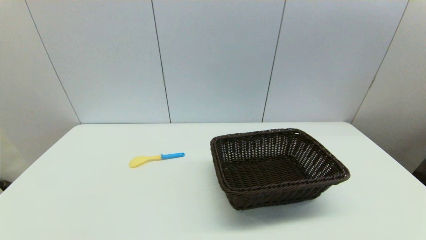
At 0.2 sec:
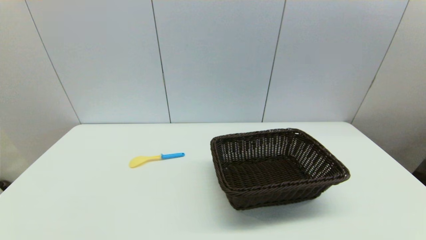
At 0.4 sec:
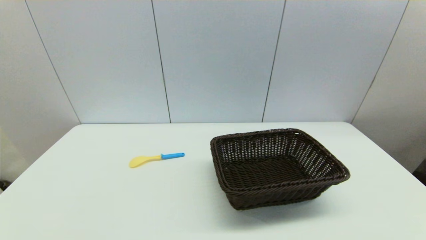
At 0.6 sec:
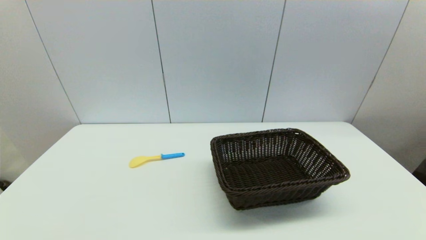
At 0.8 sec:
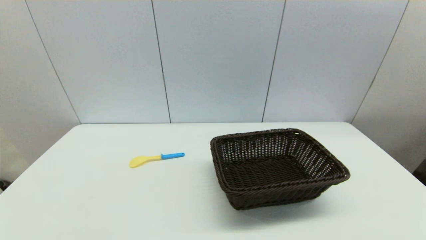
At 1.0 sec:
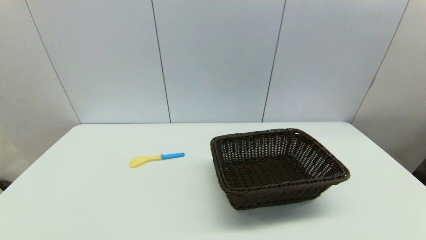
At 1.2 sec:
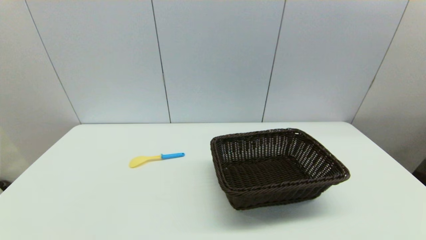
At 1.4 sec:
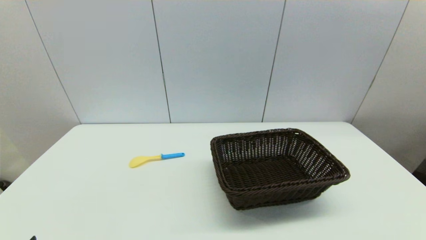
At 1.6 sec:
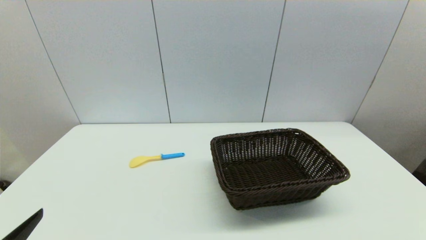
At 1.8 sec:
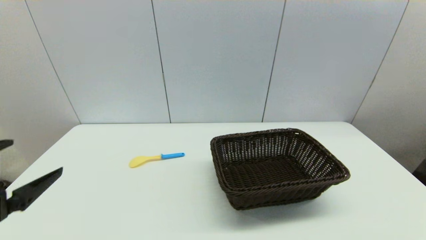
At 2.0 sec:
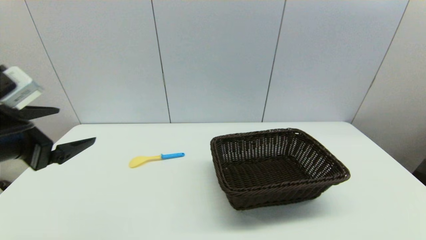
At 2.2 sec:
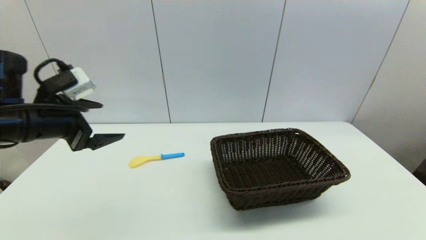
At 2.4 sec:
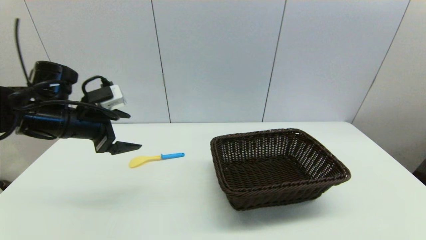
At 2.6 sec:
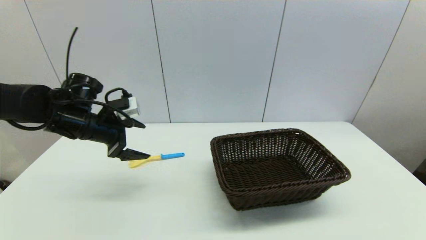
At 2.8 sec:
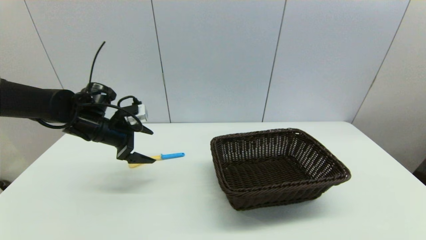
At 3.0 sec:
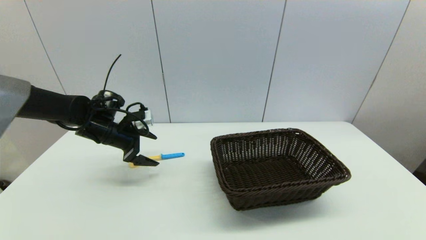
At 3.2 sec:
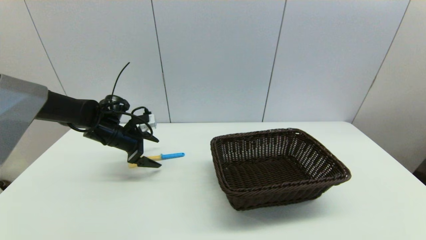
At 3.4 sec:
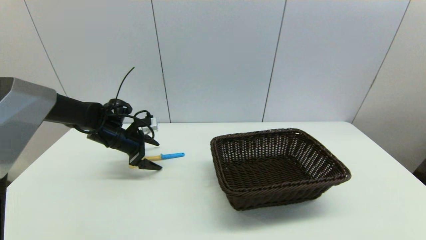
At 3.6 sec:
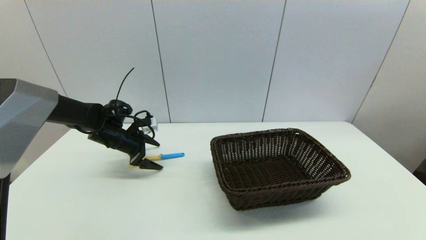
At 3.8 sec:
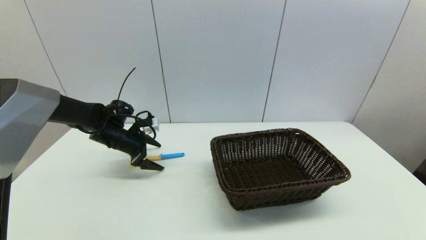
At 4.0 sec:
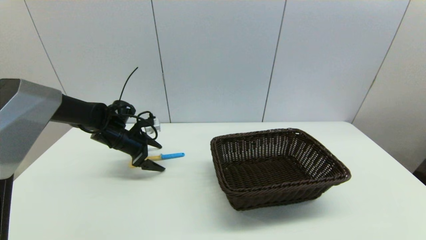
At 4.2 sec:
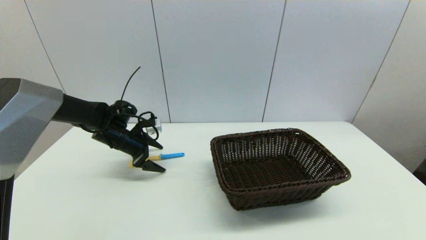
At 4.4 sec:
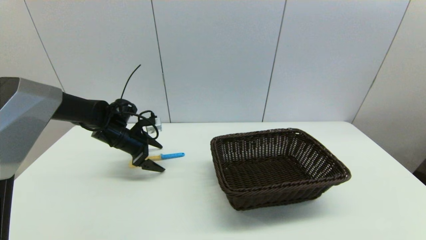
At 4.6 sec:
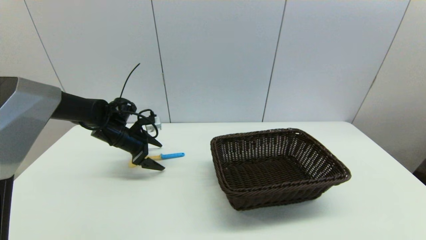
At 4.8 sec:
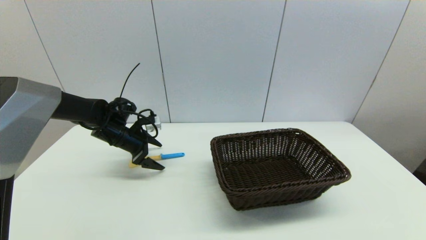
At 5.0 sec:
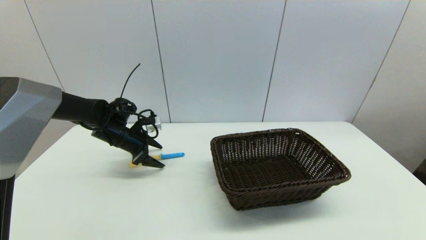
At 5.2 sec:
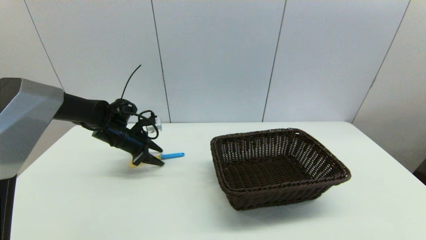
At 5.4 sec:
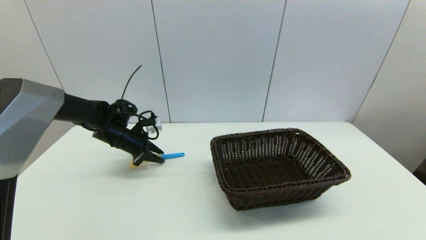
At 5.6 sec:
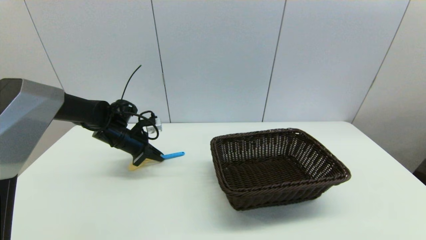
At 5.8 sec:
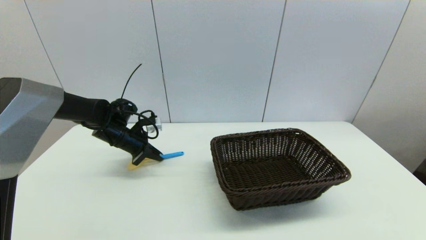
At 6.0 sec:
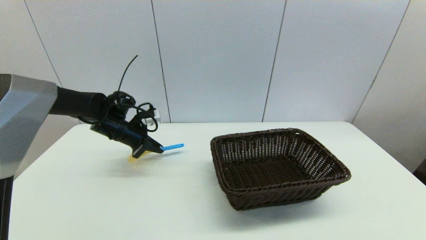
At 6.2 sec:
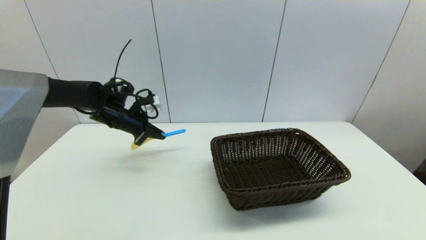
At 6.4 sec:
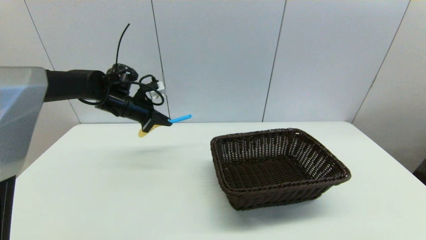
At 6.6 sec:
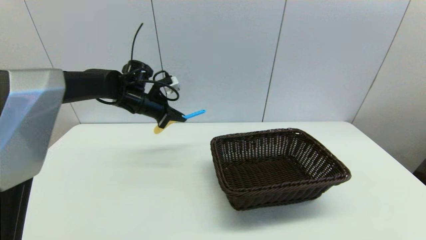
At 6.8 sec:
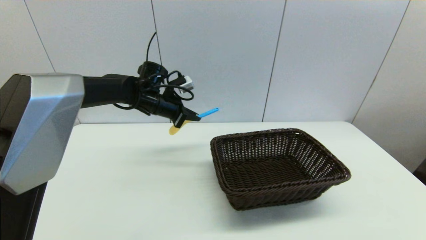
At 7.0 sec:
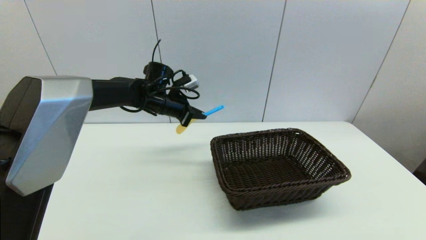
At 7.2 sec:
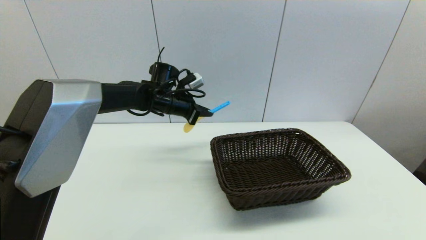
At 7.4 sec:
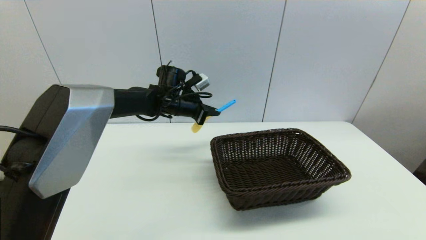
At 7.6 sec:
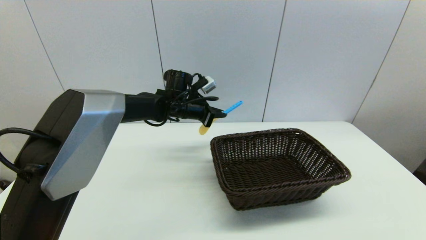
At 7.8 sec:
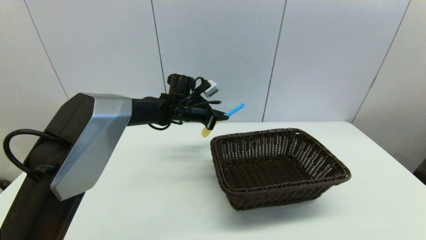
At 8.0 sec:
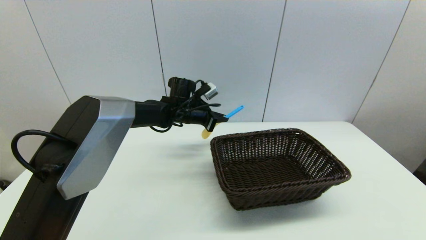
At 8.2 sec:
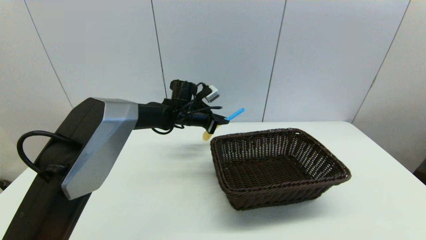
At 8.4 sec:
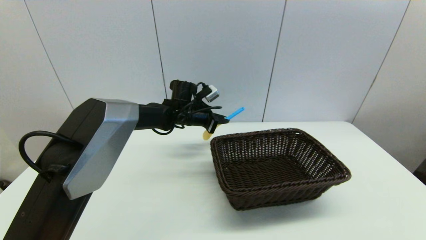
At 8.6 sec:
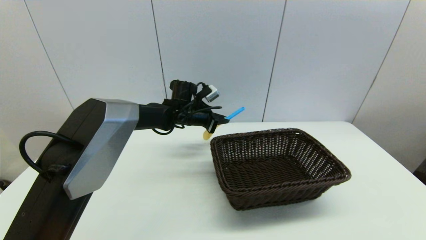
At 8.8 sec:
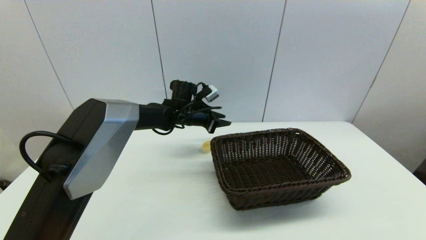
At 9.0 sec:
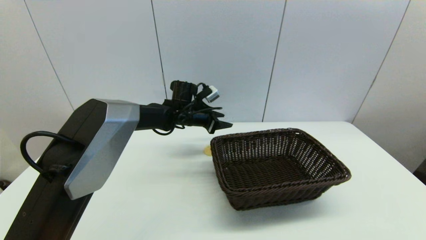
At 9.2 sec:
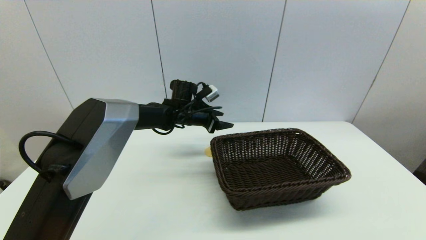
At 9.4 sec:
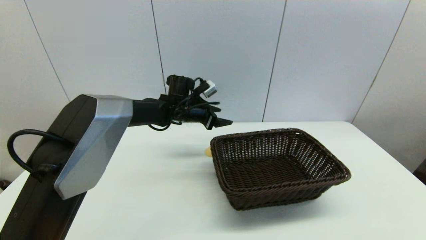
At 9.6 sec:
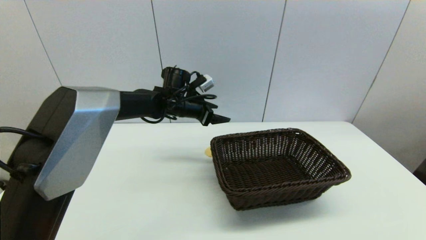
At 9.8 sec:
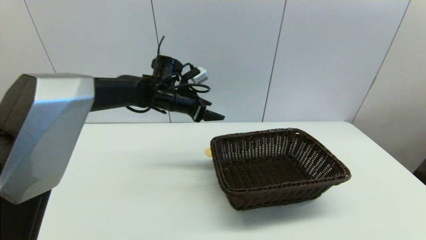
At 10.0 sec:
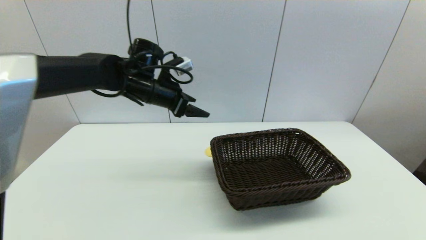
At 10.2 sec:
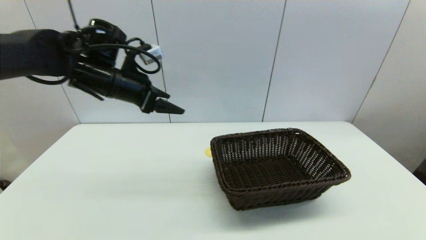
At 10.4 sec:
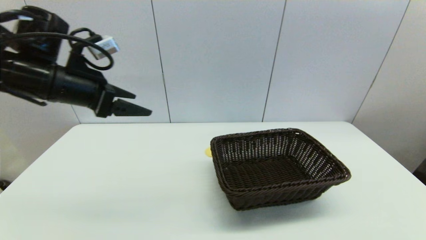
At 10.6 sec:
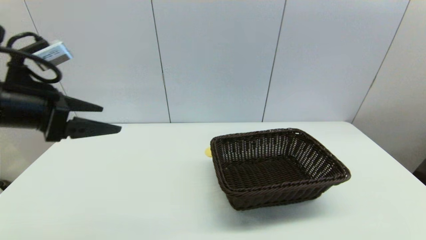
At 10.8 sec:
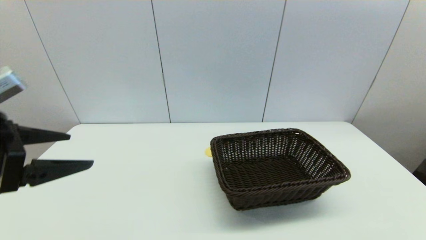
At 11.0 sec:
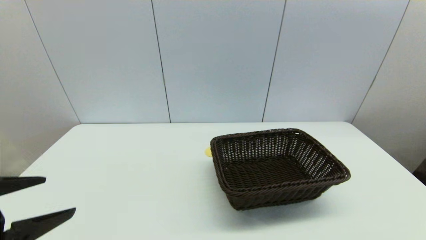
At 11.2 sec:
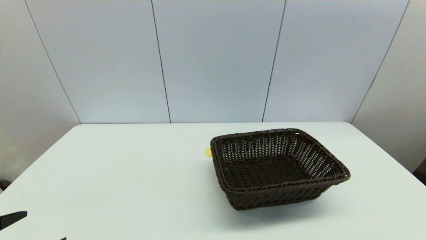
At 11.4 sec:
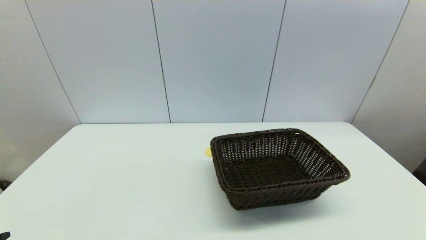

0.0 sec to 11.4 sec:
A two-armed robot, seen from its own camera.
Step, 1.4 sec to 5.4 sec: Grasp the spoon with left gripper.
Step, 5.8 sec to 8.8 sec: Place the spoon on the table with left gripper.
1.4 sec to 2.8 sec: The left gripper goes roughly 35 cm forward.
2.8 sec to 4.2 sec: The left gripper is displaced downward by some 5 cm.
4.2 sec to 5.6 sec: The left gripper closes its fingers.
5.6 sec to 7.2 sec: The left gripper moves to the right and upward, approximately 15 cm.
7.2 sec to 8.6 sec: The left gripper ends up approximately 5 cm from where it was.
8.6 sec to 10.0 sec: The left gripper goes approximately 15 cm upward, to the left and backward, and opens.
10.0 sec to 11.4 sec: The left gripper moves backward and to the left, approximately 40 cm.

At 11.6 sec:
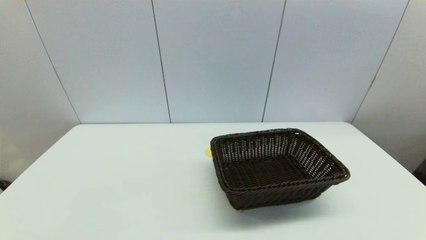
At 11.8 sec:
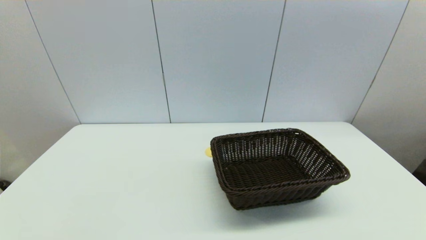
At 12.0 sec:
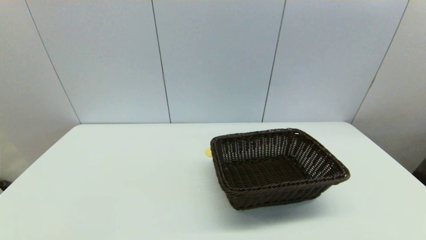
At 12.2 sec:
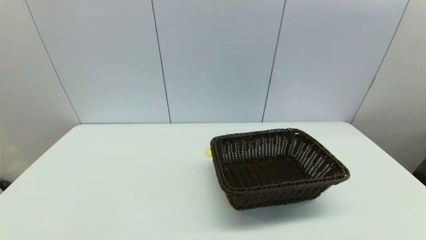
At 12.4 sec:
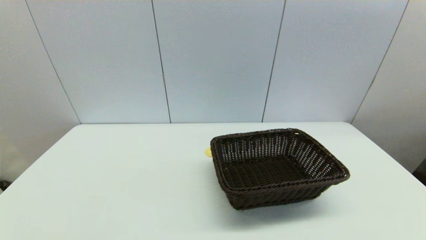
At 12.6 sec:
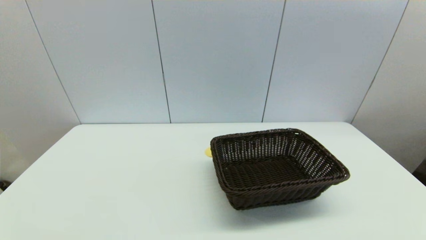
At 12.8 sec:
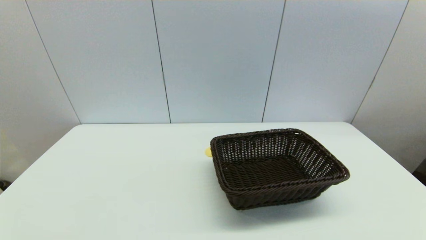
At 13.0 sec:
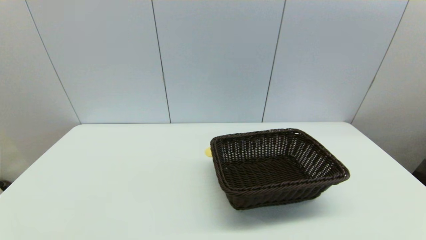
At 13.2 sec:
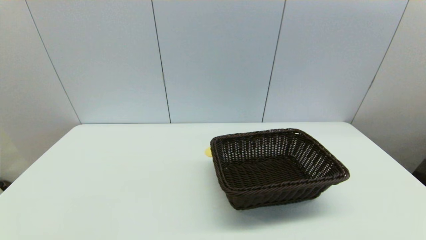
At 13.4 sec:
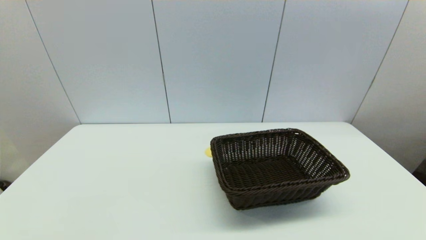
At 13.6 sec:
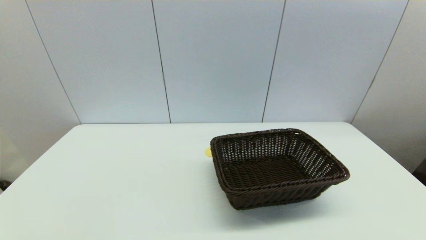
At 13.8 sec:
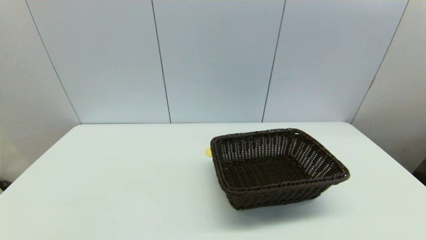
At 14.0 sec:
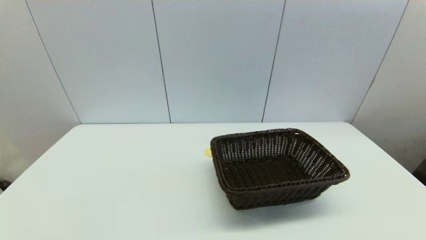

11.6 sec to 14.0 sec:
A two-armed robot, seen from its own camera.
12.8 sec to 14.0 sec: Both grippers stay about where they are.
